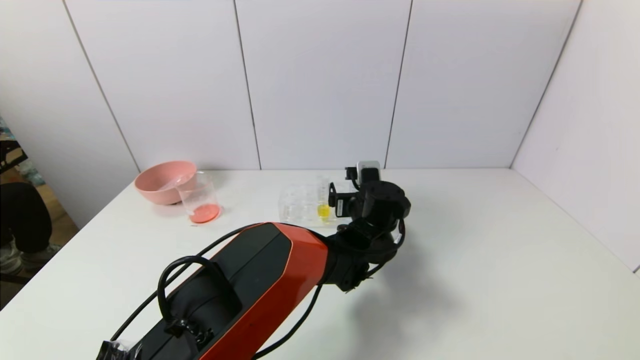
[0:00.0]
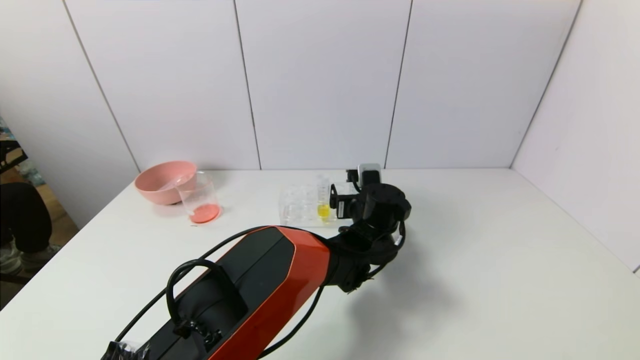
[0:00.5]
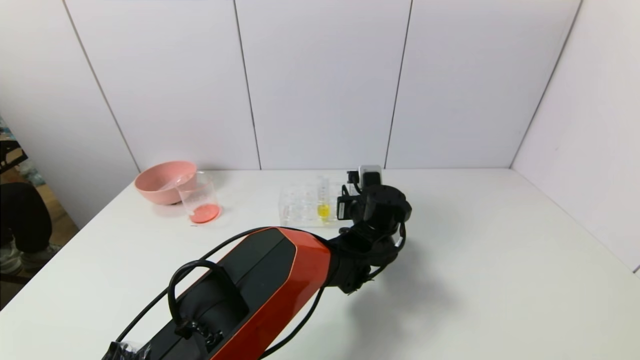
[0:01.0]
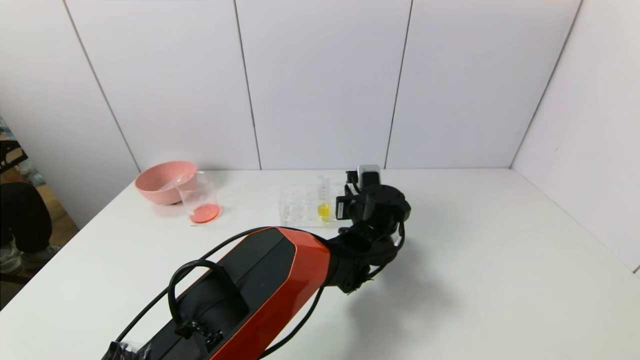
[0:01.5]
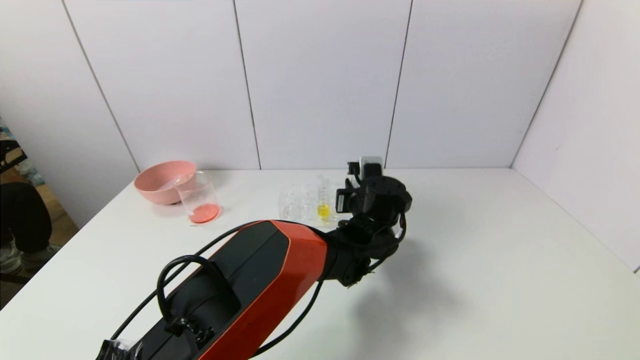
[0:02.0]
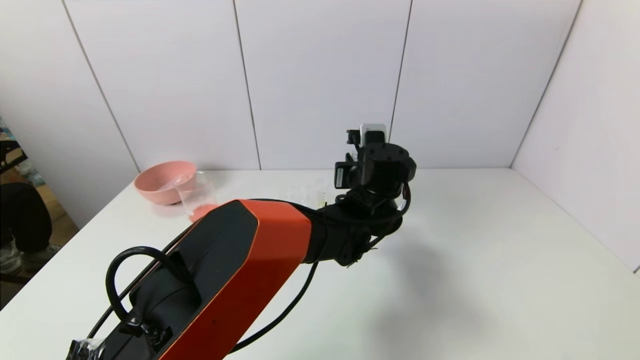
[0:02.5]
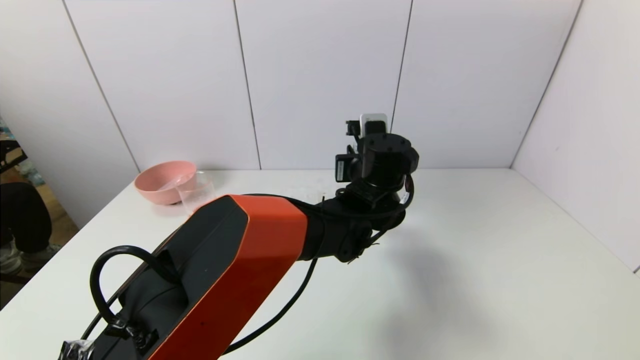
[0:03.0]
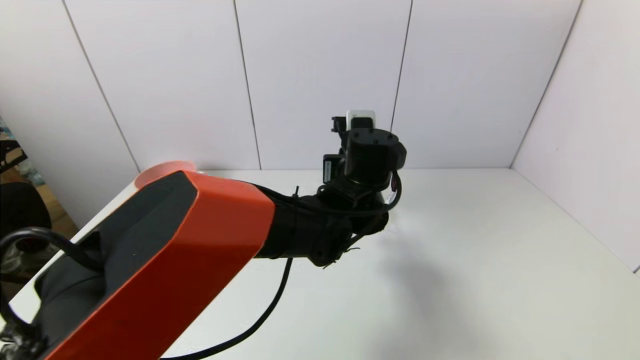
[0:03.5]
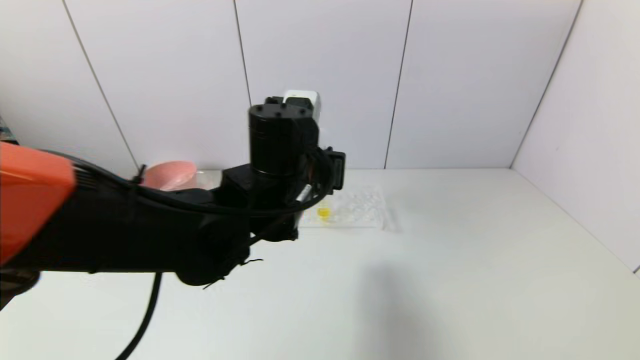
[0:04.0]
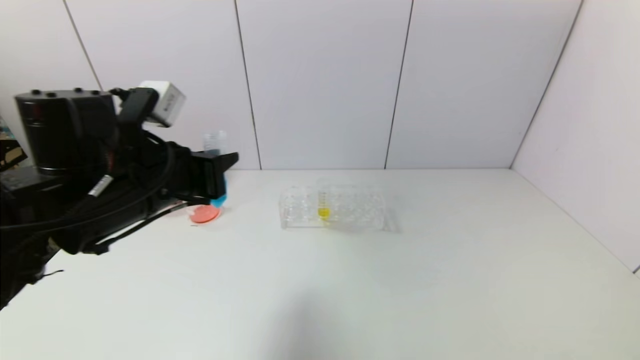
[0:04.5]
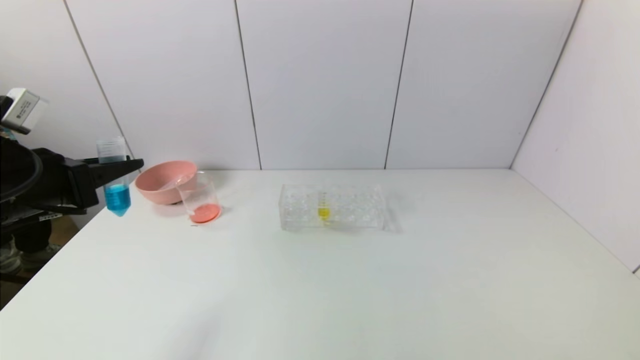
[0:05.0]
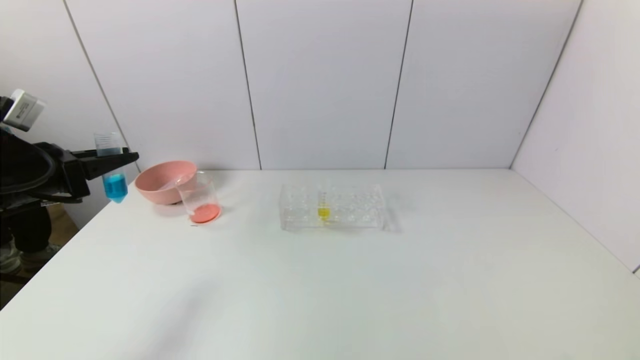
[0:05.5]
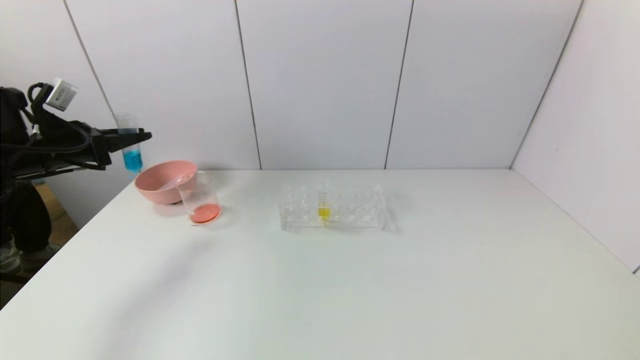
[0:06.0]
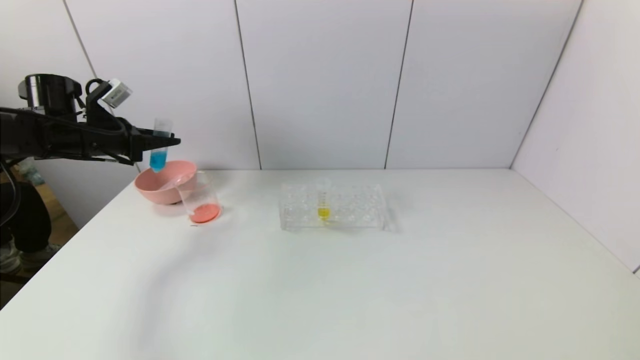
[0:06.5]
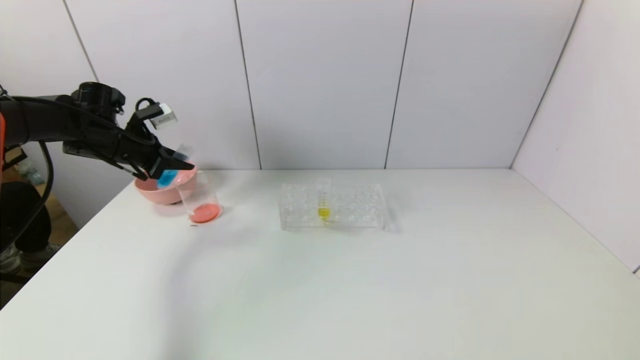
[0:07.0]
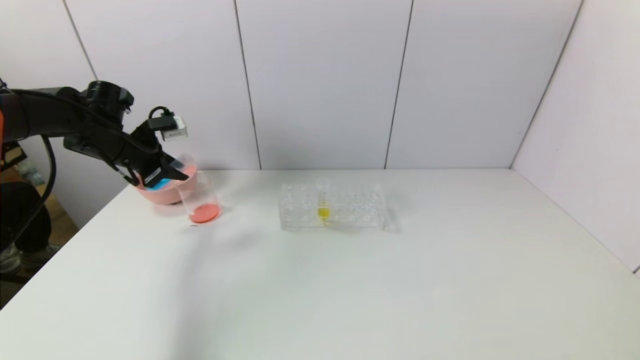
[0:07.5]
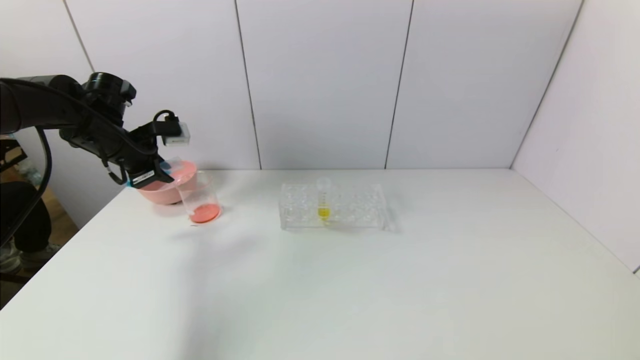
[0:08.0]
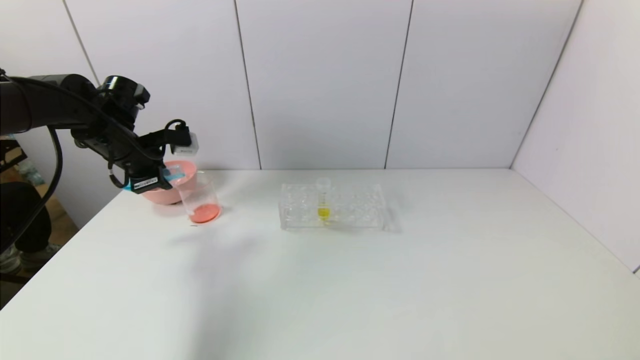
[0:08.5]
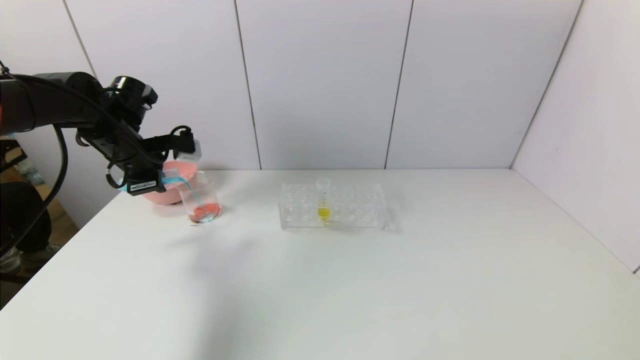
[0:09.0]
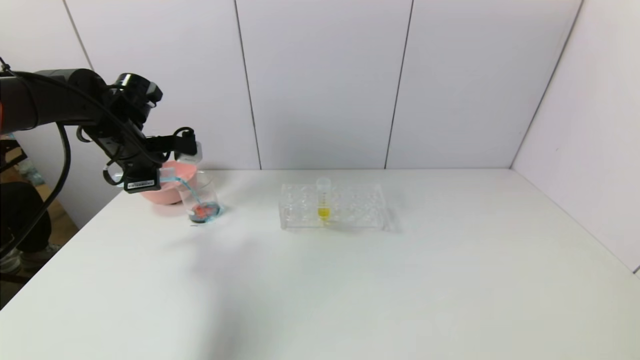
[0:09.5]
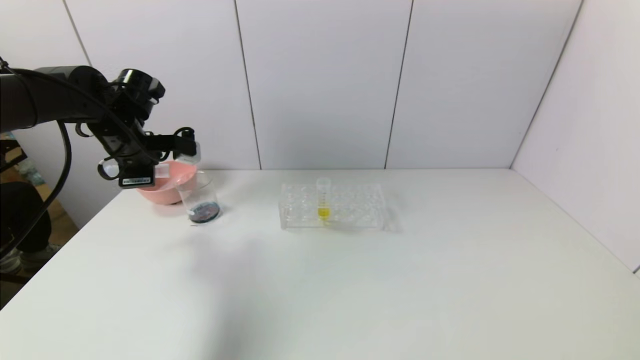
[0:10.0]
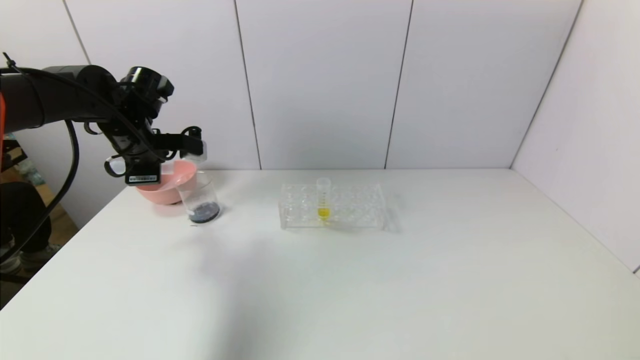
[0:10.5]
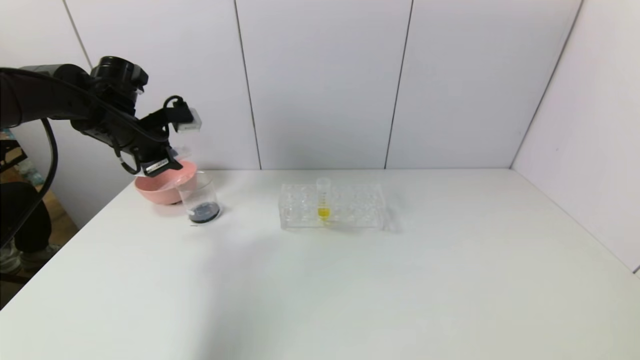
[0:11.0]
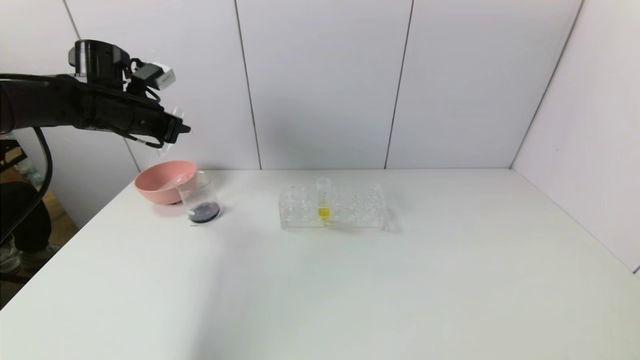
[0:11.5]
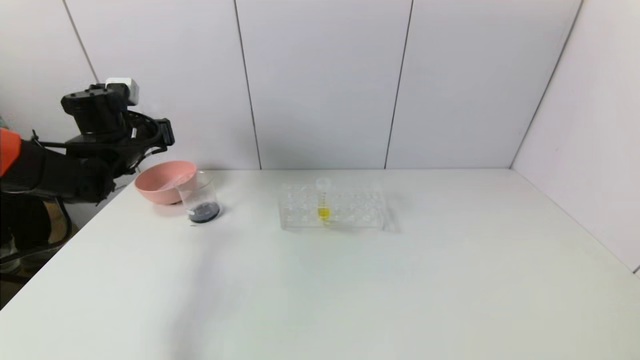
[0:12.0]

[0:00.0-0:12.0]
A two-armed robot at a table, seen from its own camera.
Task of the whole recording: pick up the test tube with red pigment and the test tube with blue pigment by grippers and pour them into the container.
Step, 0:02.0 to 0:10.5: Pour the blue reagent into the graduated cylinder with the left gripper.
0:00.0 to 0:02.0: The left gripper closes its fingers.
0:02.0 to 0:04.0: The left gripper travels to the left, upward and backward by some 20 cm.
0:04.0 to 0:06.0: The left gripper is displaced to the left by some 35 cm.
0:06.0 to 0:08.0: The left gripper shifts approximately 10 cm to the right.

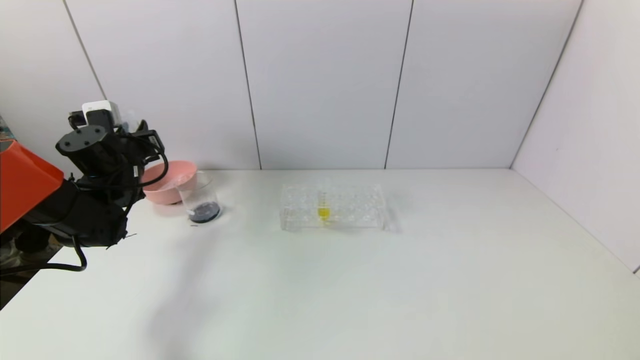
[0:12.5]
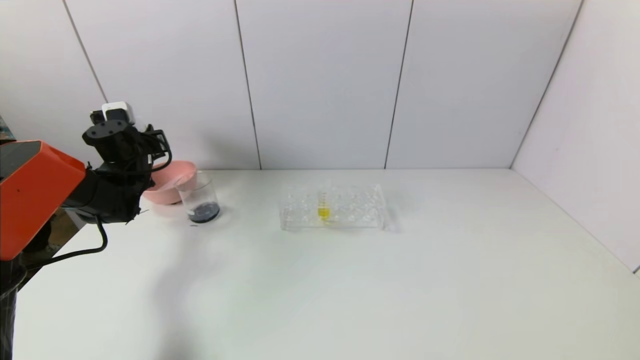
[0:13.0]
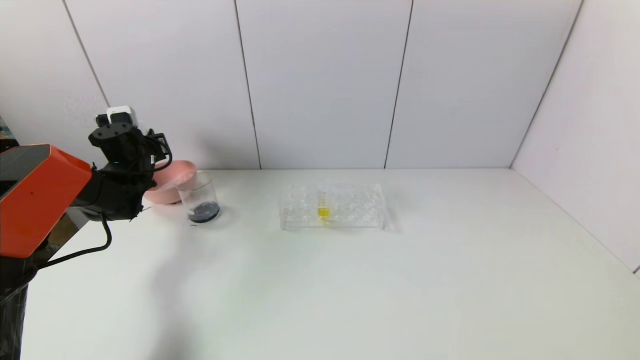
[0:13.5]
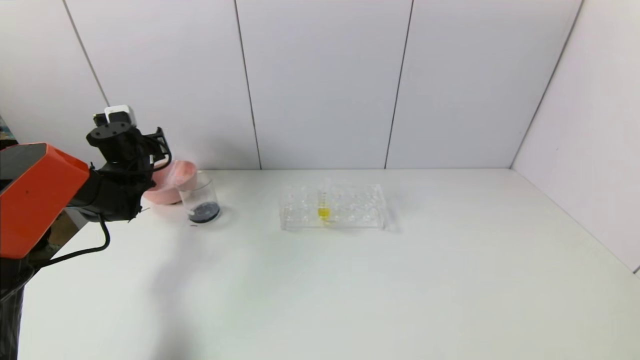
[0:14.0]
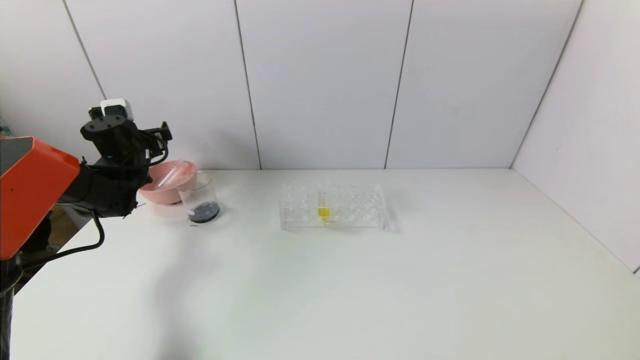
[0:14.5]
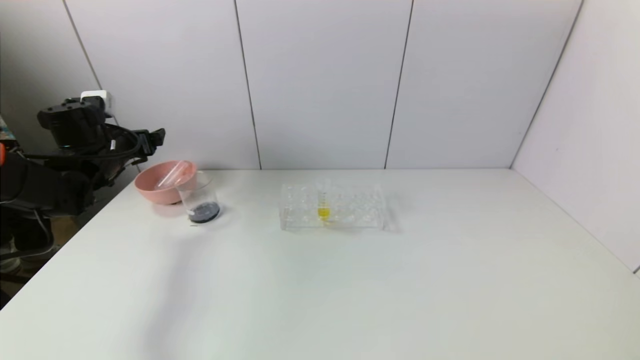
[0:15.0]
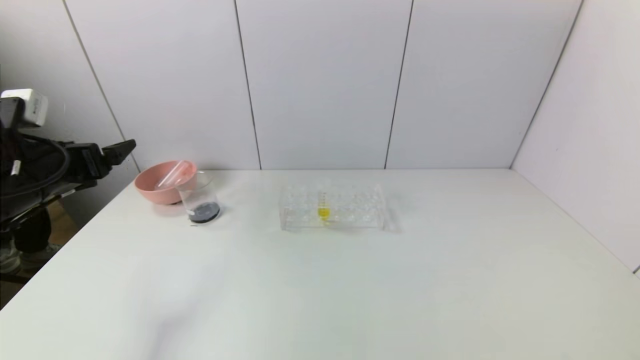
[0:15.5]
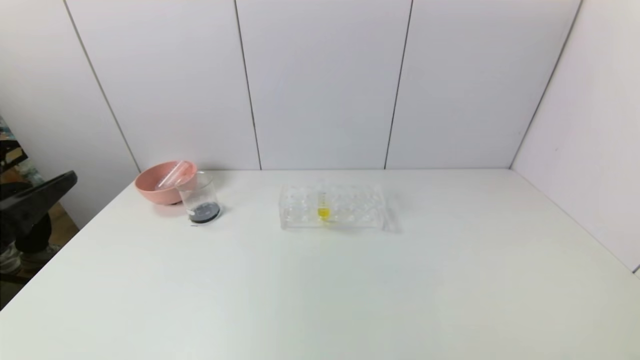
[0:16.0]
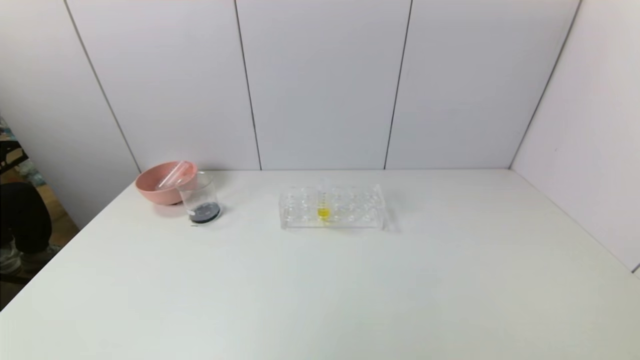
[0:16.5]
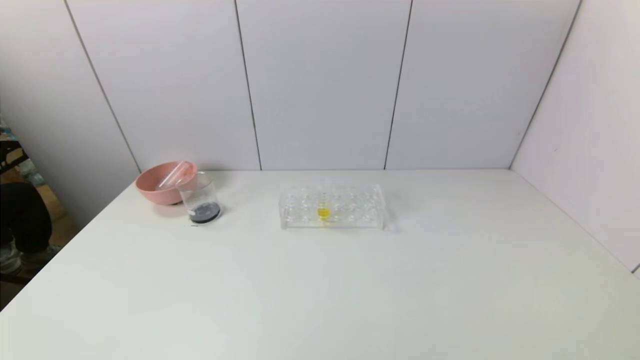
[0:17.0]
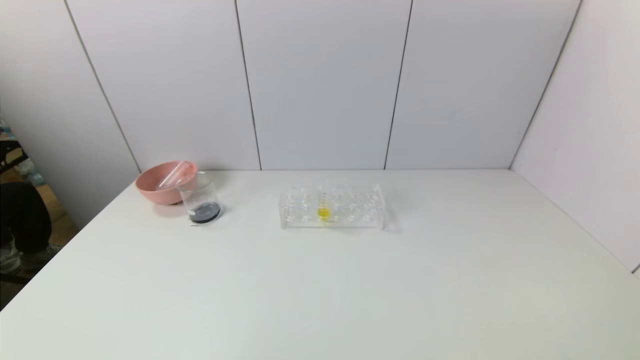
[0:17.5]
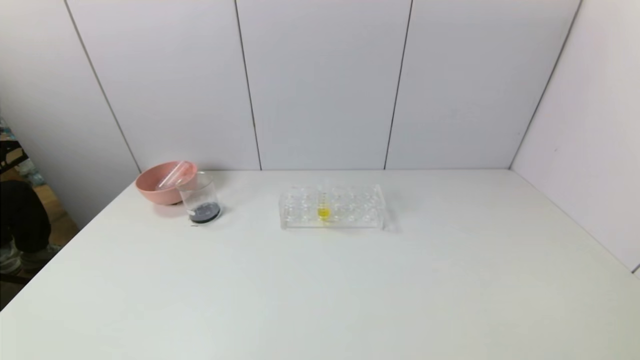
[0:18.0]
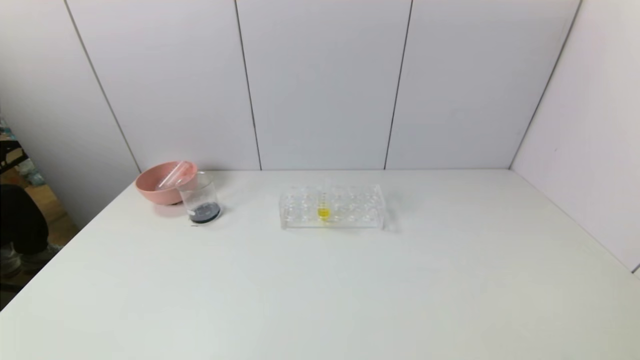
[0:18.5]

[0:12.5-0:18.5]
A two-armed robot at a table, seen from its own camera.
Task of the whole recording: pick up the test tube with red pigment and the test tube with blue pigment by grippers and pour them into the container.
Step, 0:12.5 to 0:14.5: Place the test tube into the bowl with the left gripper.
0:12.5 to 0:14.5: The left gripper heads forward, covering roughly 5 cm, and opens.
0:14.5 to 0:16.5: The left gripper goes some 50 cm backward.
